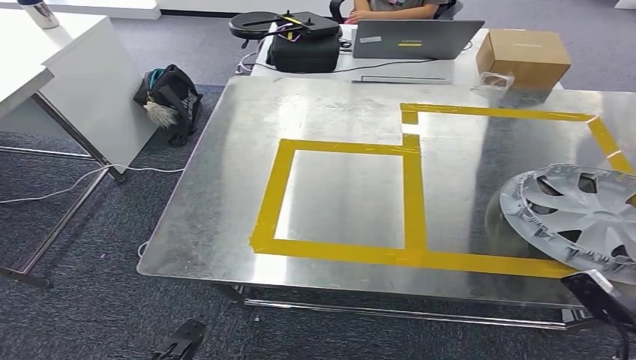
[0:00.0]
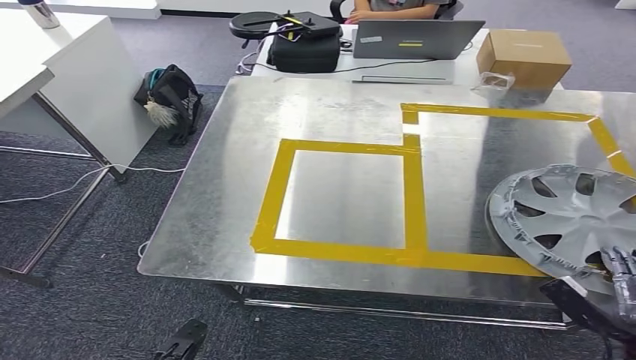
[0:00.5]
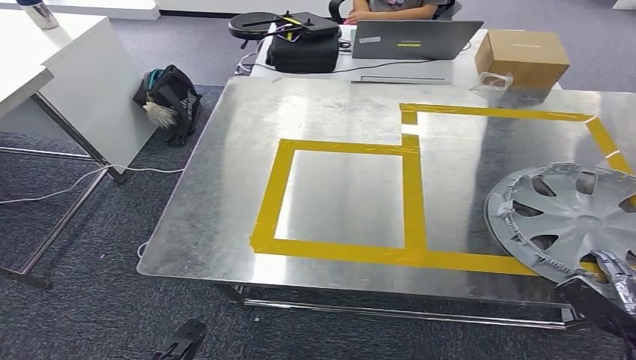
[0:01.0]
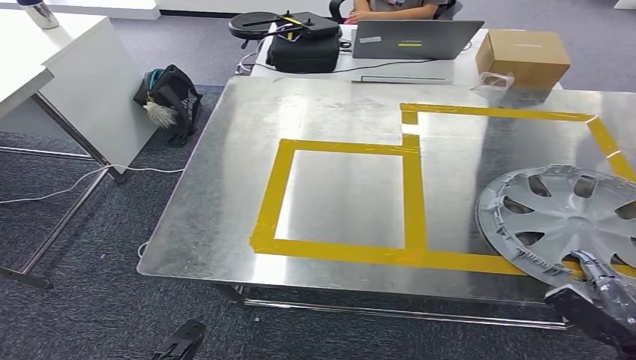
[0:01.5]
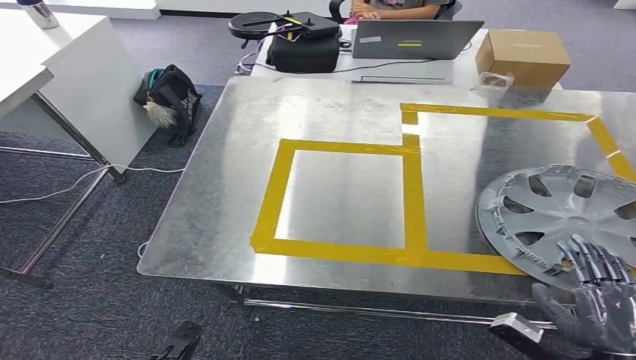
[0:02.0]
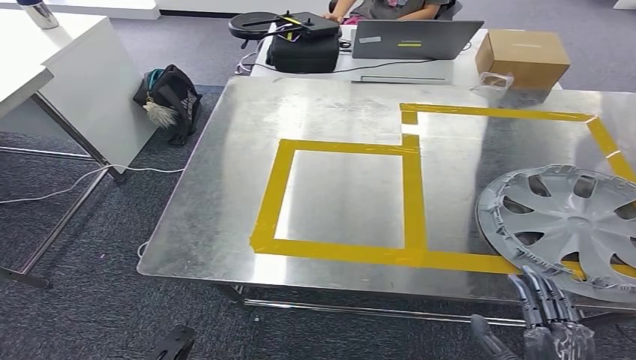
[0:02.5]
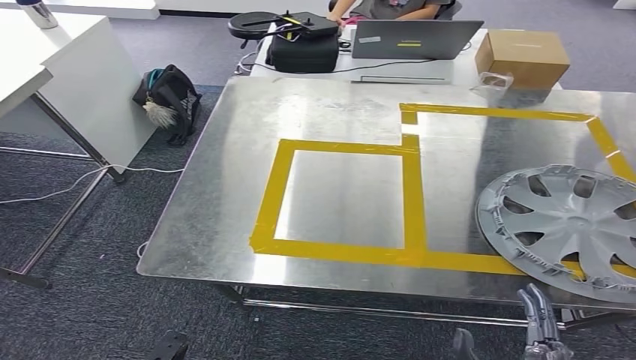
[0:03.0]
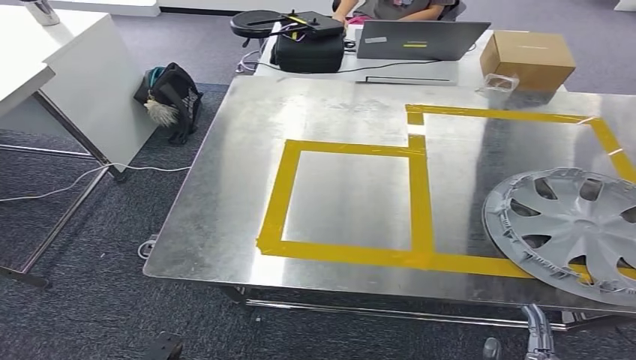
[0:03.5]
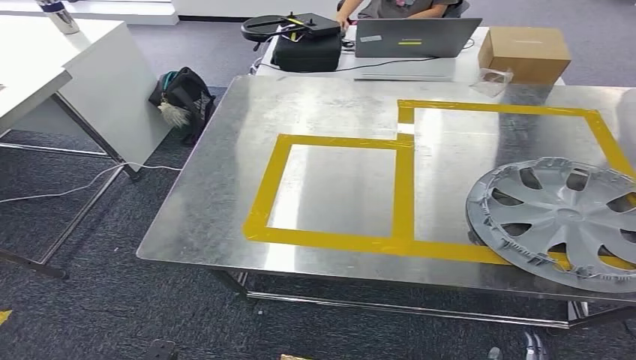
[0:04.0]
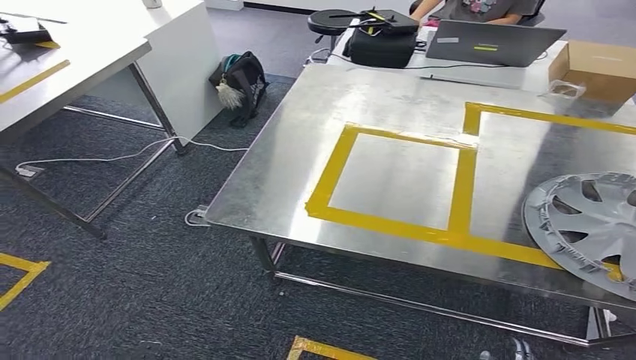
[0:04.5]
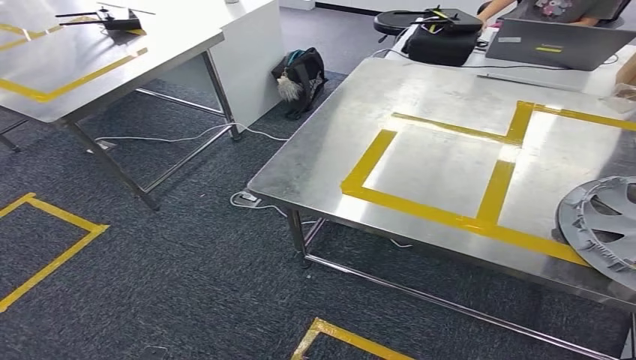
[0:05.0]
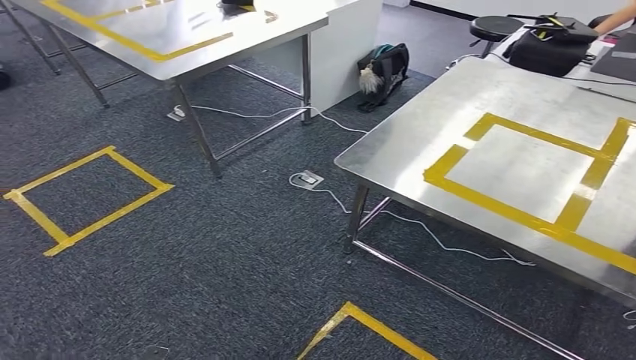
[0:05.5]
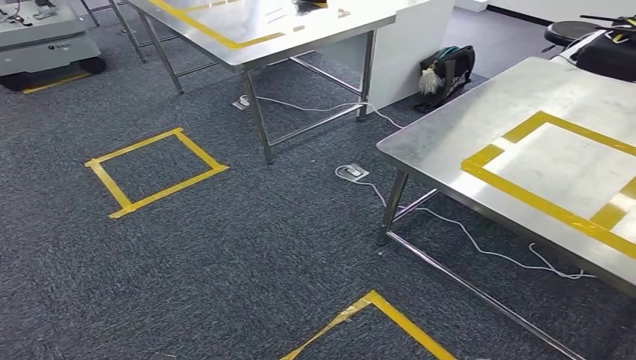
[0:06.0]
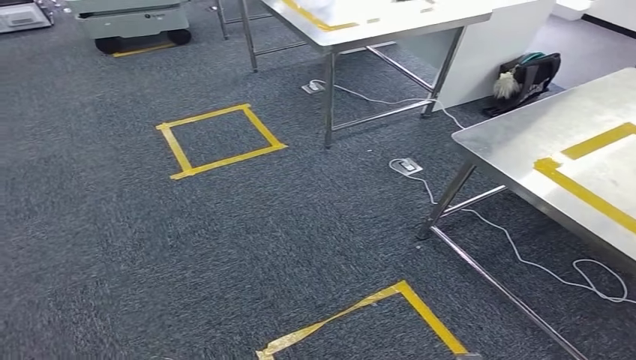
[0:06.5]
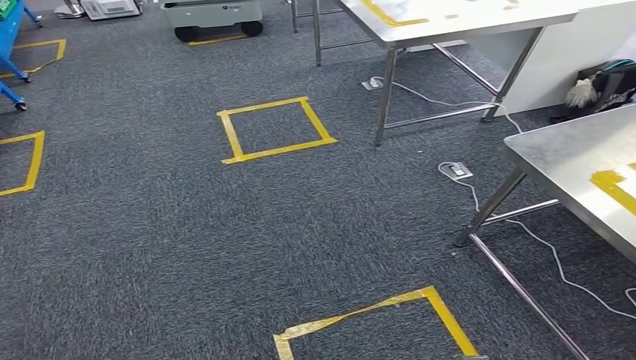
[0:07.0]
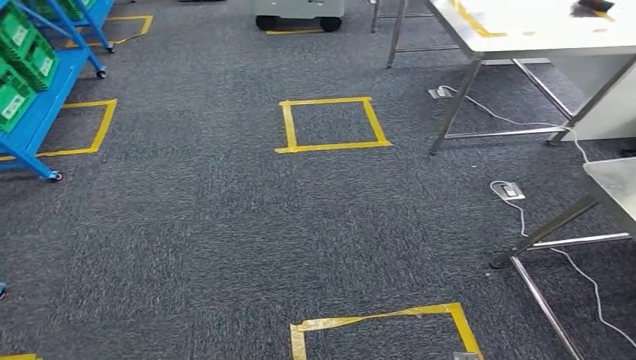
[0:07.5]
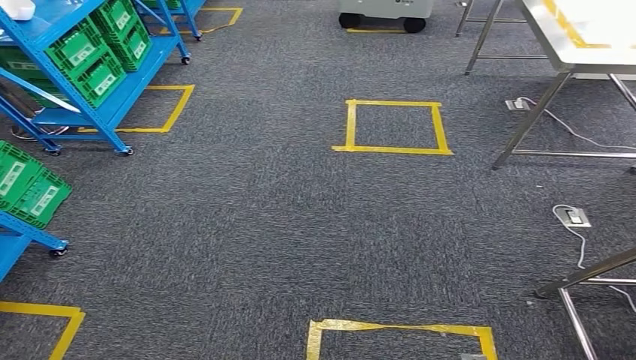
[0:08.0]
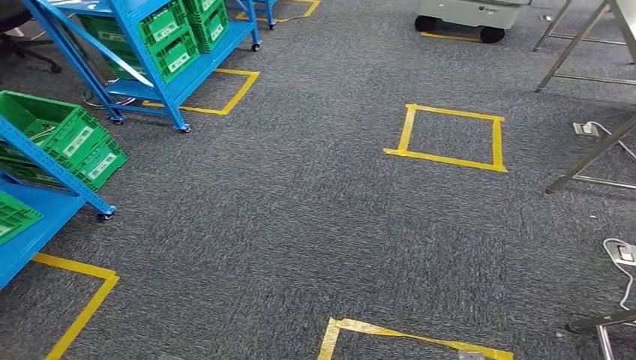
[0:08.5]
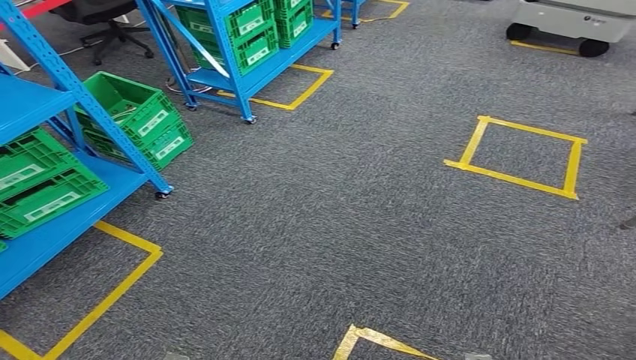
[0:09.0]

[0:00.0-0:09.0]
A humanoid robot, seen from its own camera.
Step, 0:00.0 to 0:04.0: Insert the small component into the corresponding slot on the workbench.
0:00.0 to 0:02.0: The right hand goes approximately 10 cm to the left.

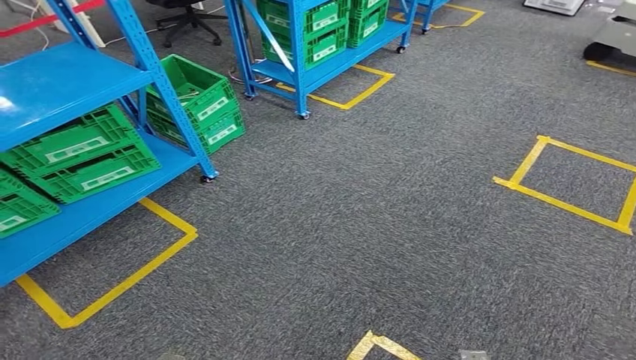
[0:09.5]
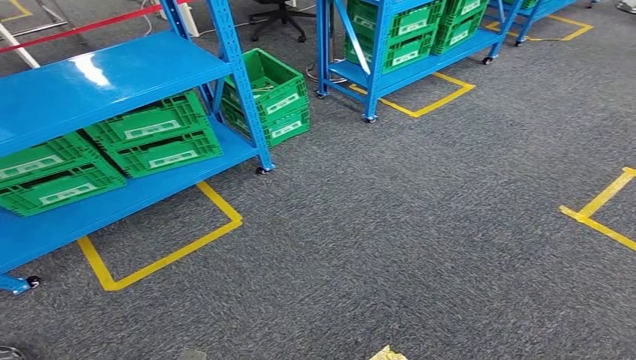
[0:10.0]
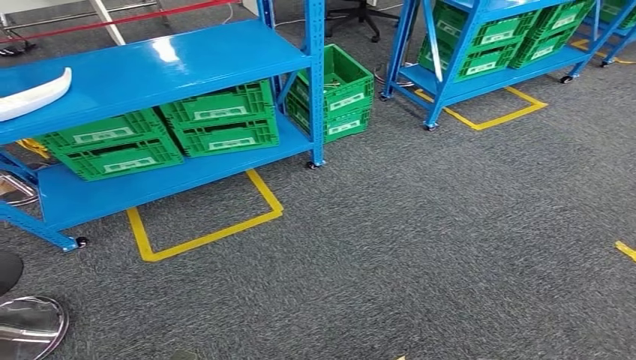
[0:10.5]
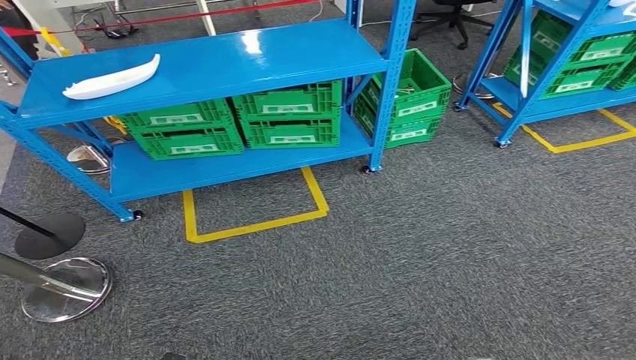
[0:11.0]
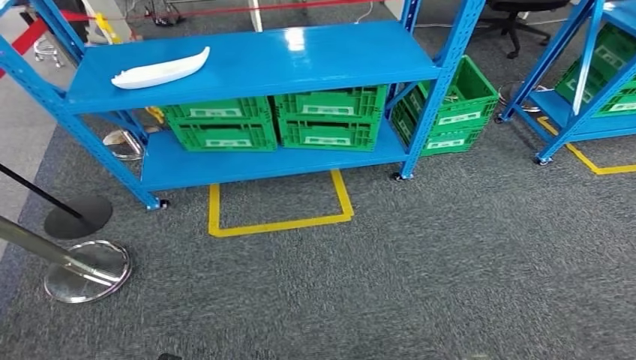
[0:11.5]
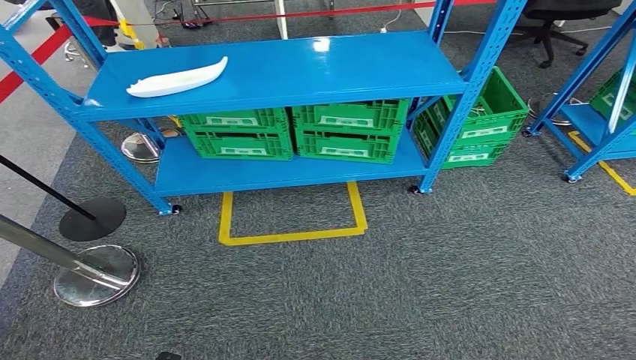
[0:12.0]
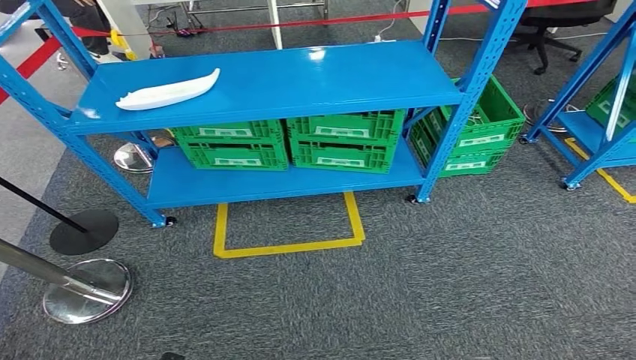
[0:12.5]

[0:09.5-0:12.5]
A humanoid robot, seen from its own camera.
Step, 0:09.5 to 0:12.5: Move to the initial position at the workbench.
